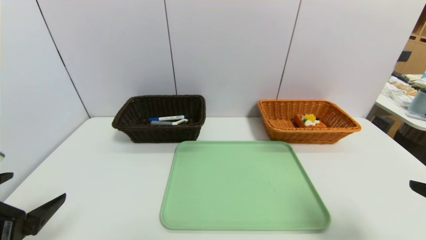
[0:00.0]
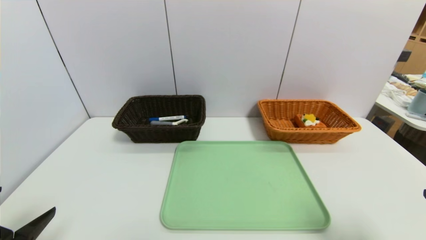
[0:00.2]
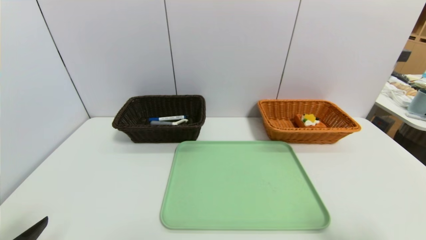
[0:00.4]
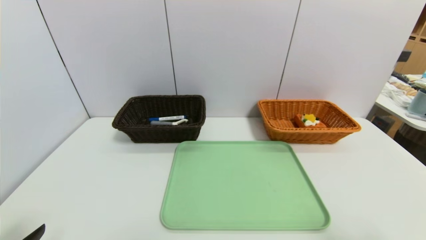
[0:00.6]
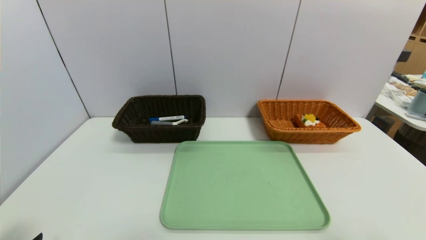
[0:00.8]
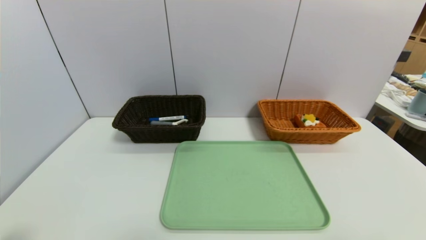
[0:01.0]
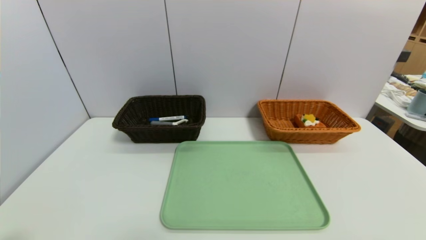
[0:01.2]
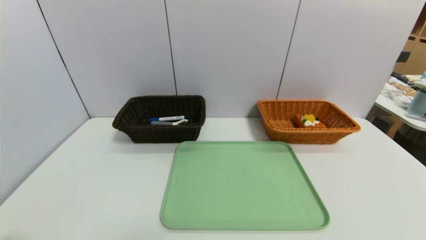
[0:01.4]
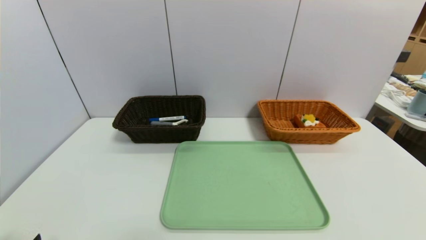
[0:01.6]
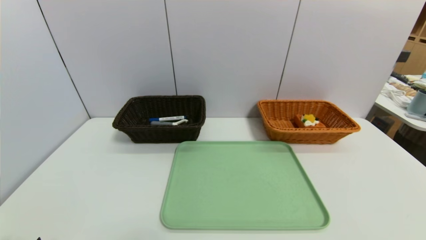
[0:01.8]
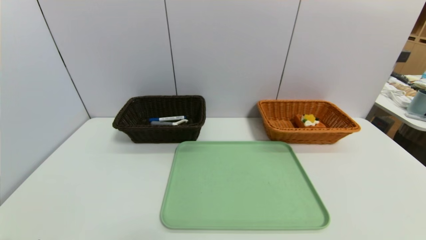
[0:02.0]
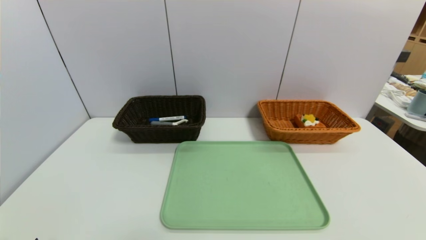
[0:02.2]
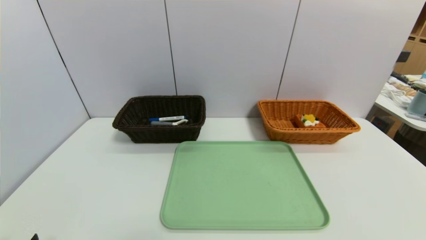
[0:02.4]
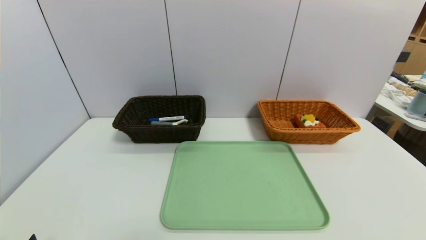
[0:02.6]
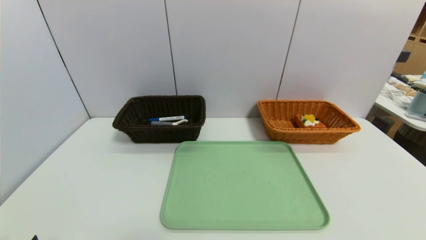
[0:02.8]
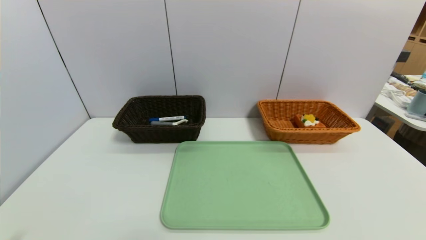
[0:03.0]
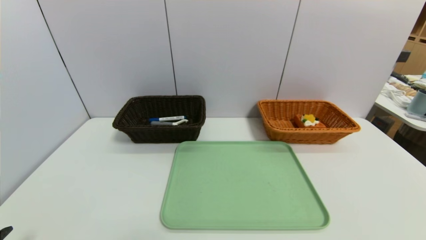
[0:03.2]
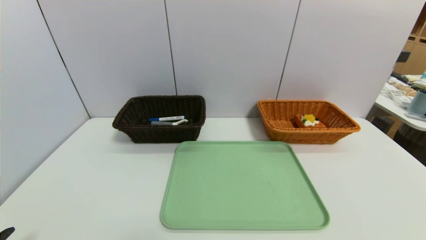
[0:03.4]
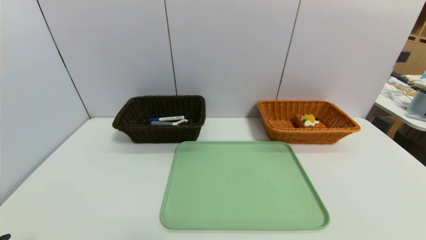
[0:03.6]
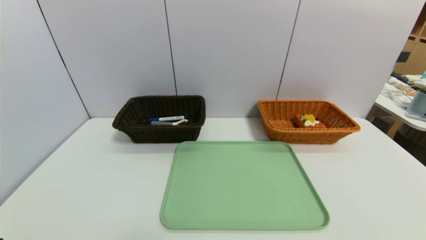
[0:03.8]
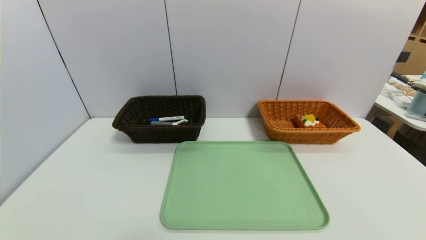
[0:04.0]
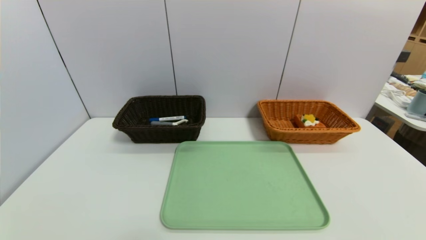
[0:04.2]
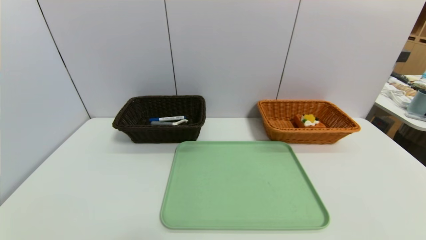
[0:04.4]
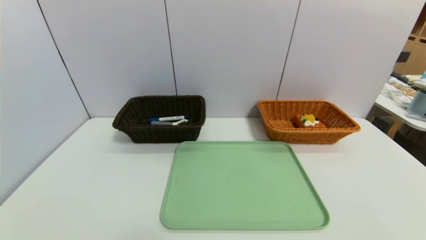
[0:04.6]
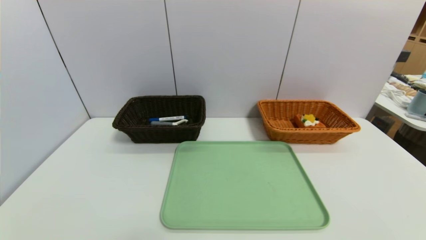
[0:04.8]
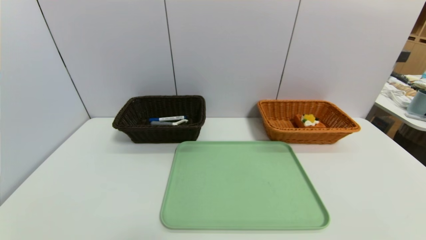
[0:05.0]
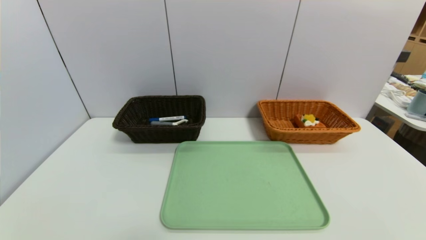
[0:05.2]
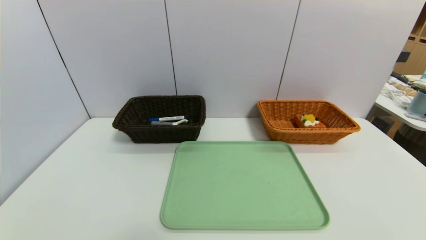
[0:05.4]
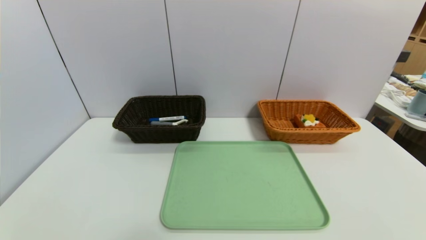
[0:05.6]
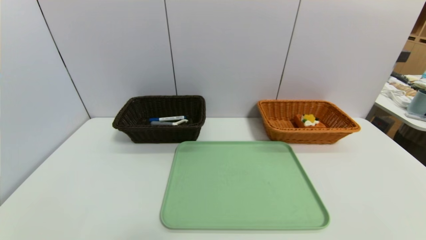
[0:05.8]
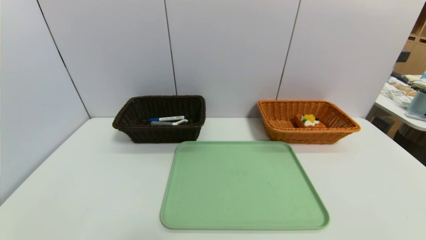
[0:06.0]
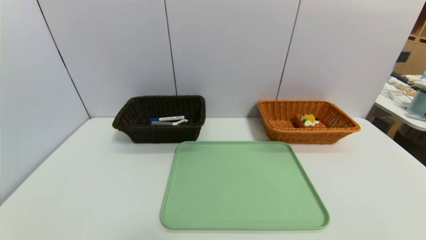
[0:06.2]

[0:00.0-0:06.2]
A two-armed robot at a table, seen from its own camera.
Task of the whole recording: place the food in the right basket with the right gripper, and place the non food items in the left basket with the left gripper.
0:00.0 to 0:01.6: The right gripper shifts roughly 10 cm backward and downward; the left gripper travels downward and backward by about 10 cm.
